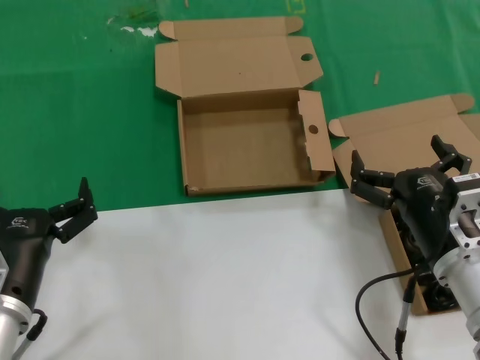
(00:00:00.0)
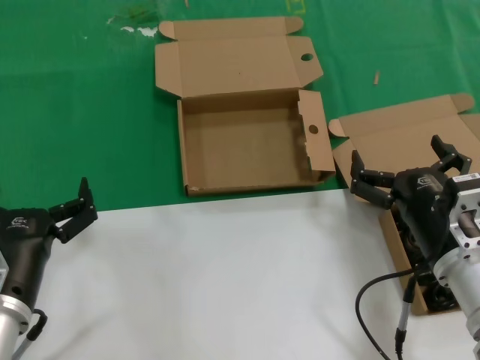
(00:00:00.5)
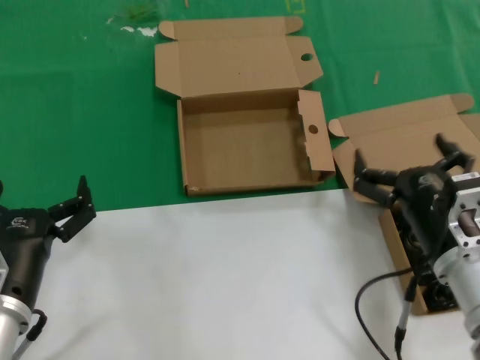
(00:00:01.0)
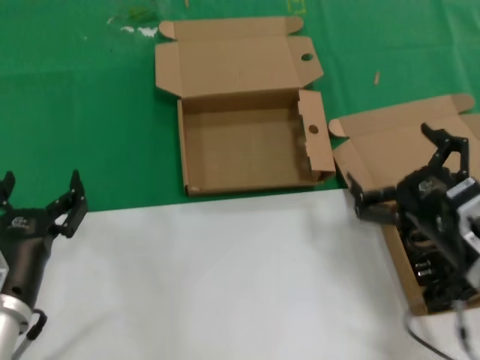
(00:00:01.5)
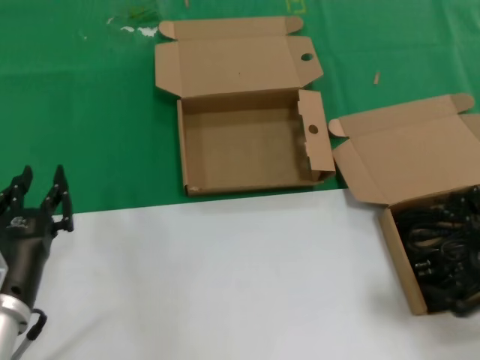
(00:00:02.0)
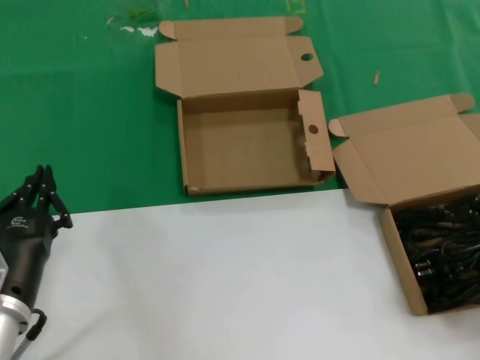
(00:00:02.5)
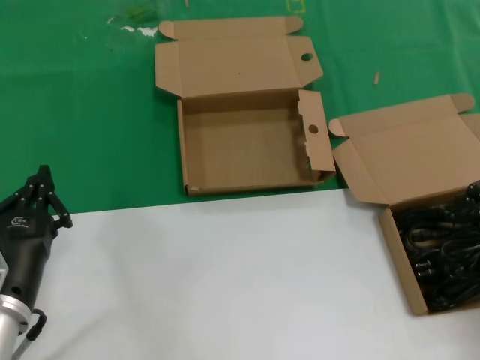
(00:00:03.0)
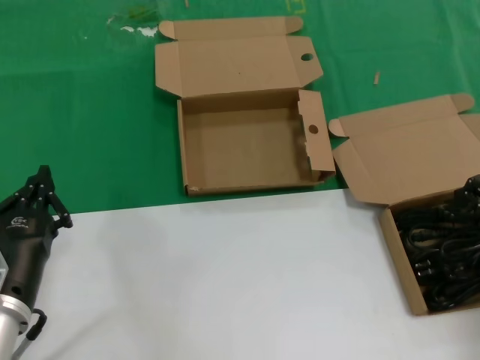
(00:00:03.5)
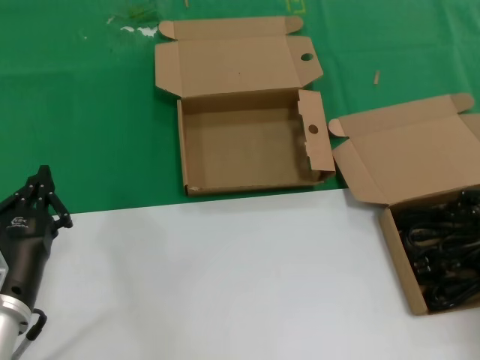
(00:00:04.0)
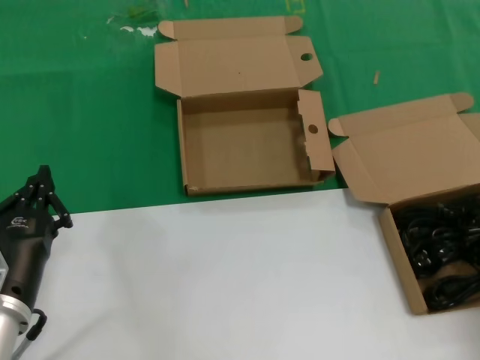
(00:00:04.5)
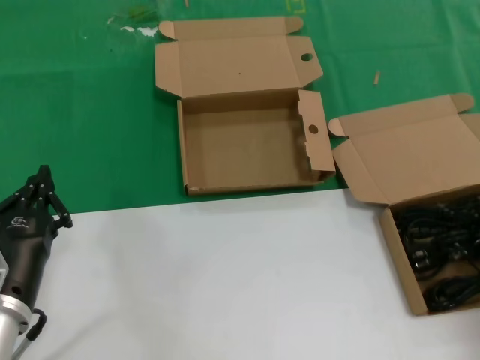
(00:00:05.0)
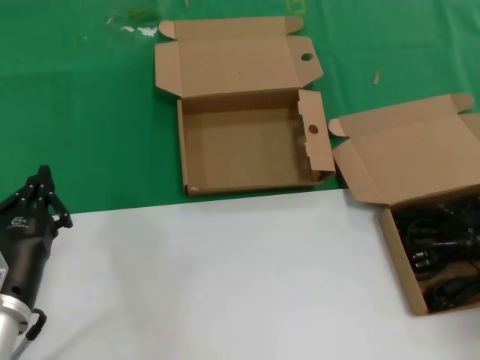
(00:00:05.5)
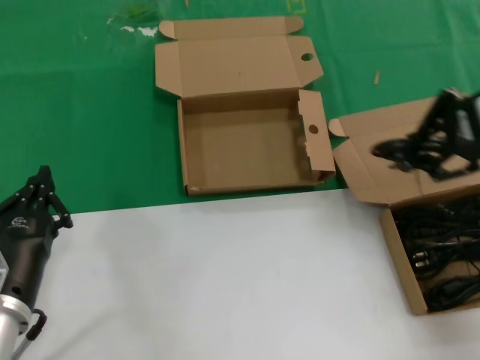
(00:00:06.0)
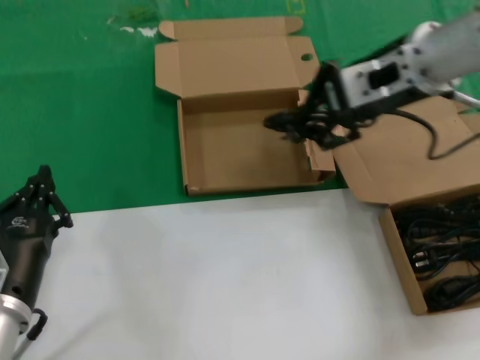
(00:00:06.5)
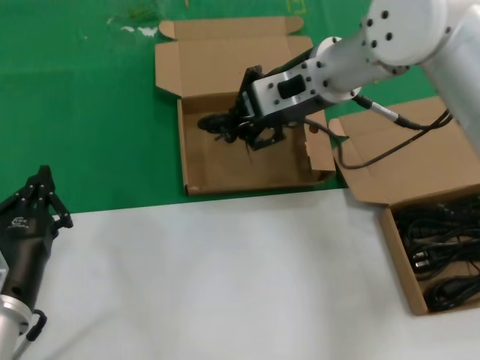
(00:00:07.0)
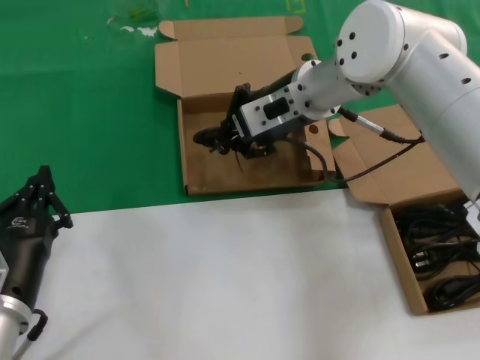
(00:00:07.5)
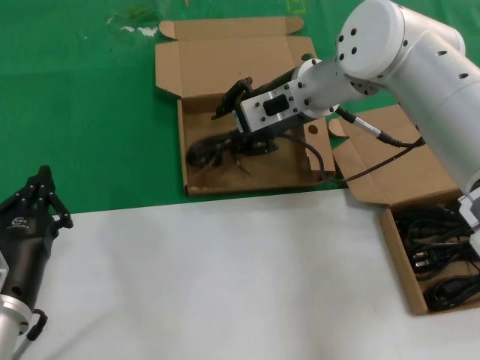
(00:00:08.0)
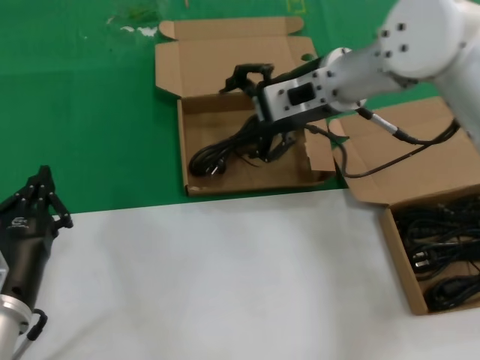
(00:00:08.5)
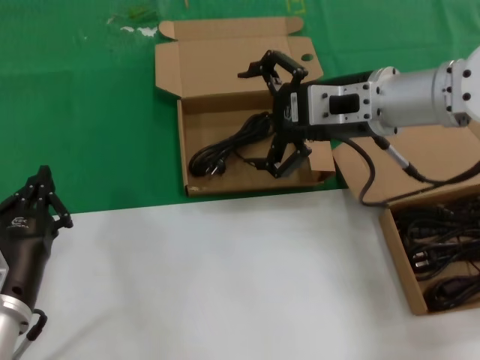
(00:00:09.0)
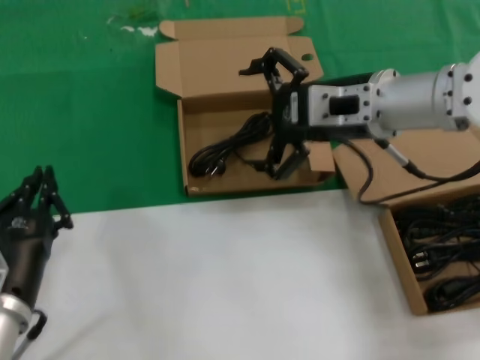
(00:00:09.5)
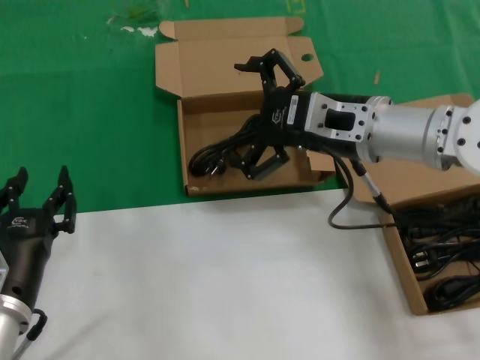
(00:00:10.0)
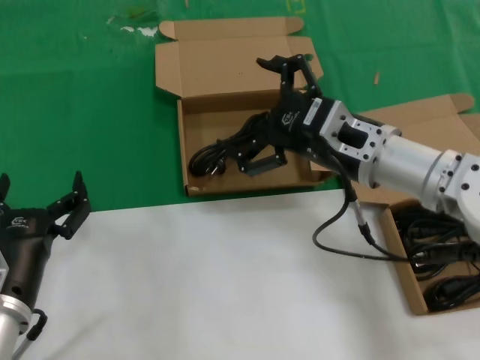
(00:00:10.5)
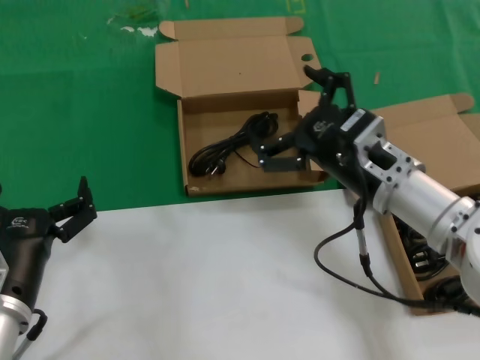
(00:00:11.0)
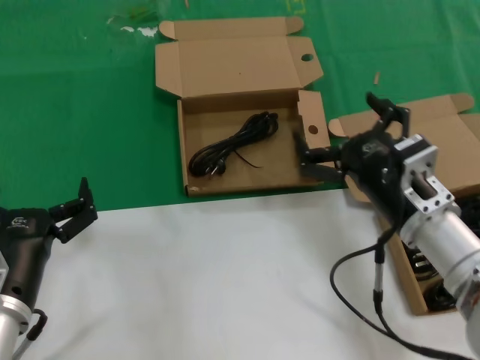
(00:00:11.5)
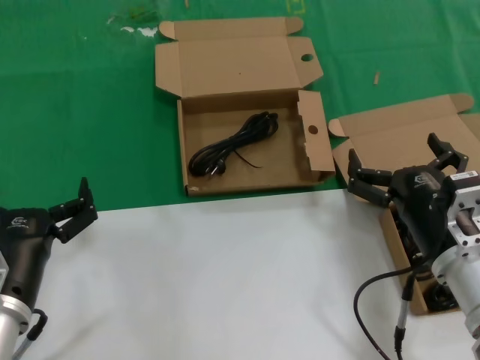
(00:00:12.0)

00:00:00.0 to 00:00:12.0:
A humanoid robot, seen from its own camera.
Task of the whole recording: take the parts from the box containing them and put them into an empty box.
Step, 00:00:00.0 to 00:00:04.5: Grasp the data cable.
Step, 00:00:05.0 to 00:00:08.0: Place the data cable in the another box.
00:00:00.0 to 00:00:02.0: The right hand travels to the right and upward by roughly 15 cm.
00:00:02.0 to 00:00:04.0: The right hand goes approximately 15 cm forward and to the right.
00:00:04.0 to 00:00:06.0: The right hand travels upward and to the left by about 20 cm.
00:00:06.0 to 00:00:08.0: The right hand goes about 25 cm to the left, forward and downward.
00:00:08.0 to 00:00:10.0: The right hand moves backward and to the right, approximately 10 cm.
00:00:10.0 to 00:00:12.0: The right hand heads downward and backward, covering some 20 cm.

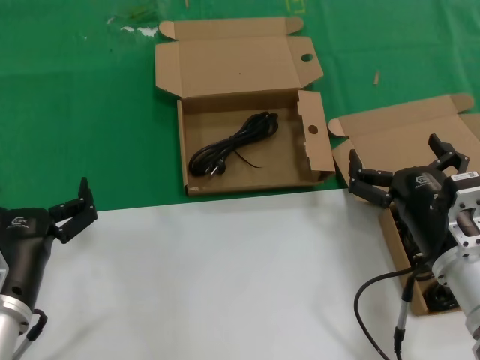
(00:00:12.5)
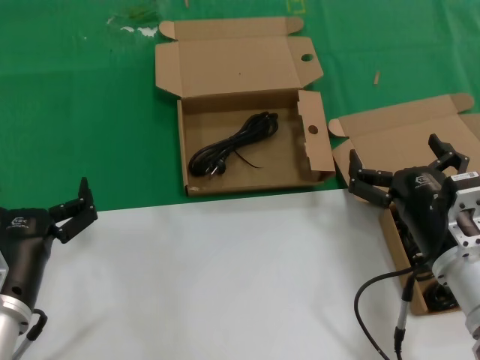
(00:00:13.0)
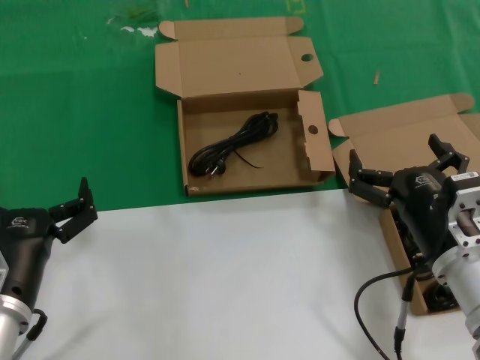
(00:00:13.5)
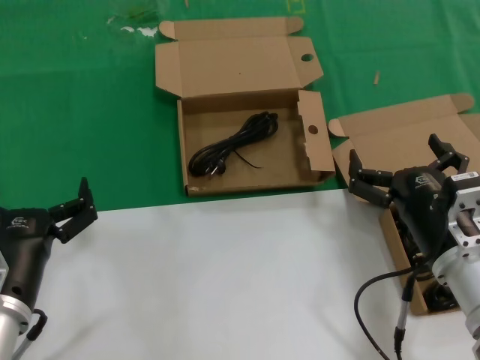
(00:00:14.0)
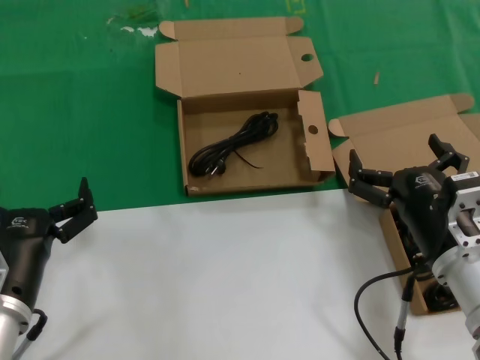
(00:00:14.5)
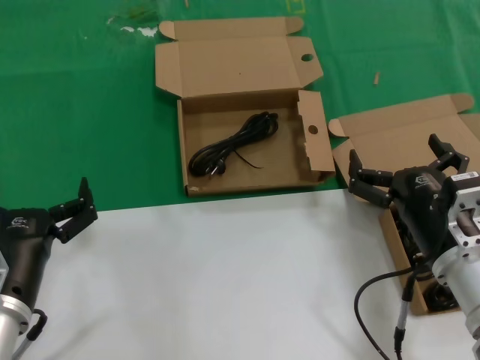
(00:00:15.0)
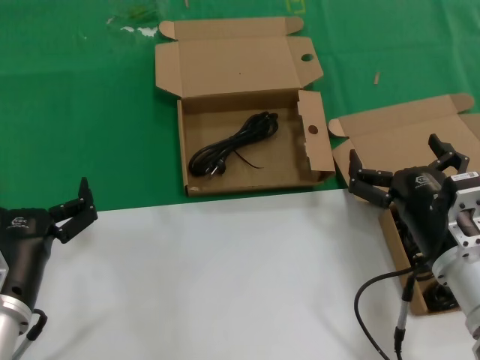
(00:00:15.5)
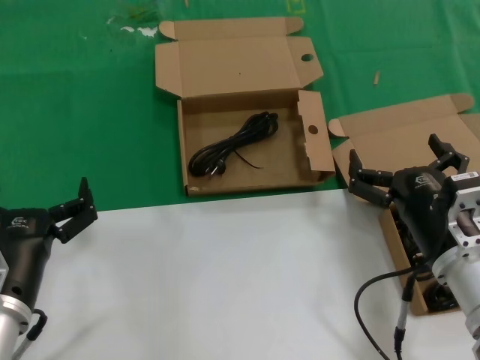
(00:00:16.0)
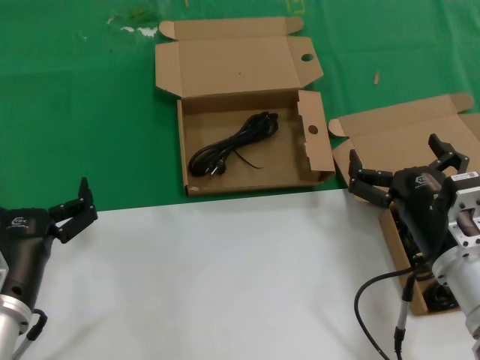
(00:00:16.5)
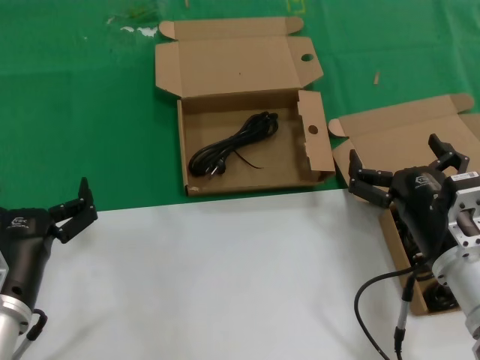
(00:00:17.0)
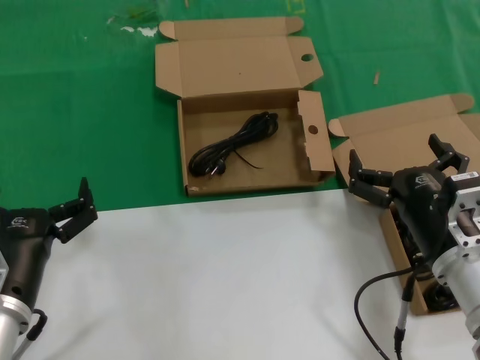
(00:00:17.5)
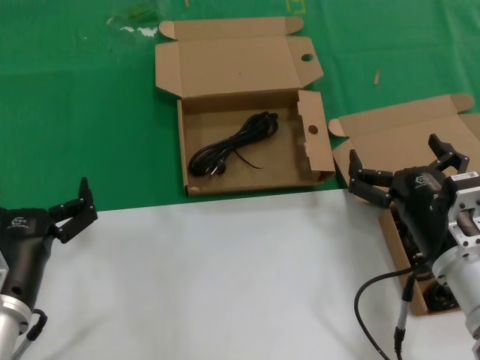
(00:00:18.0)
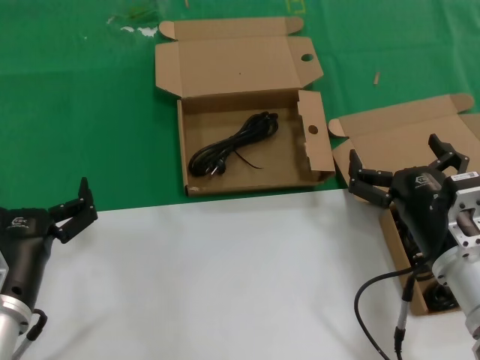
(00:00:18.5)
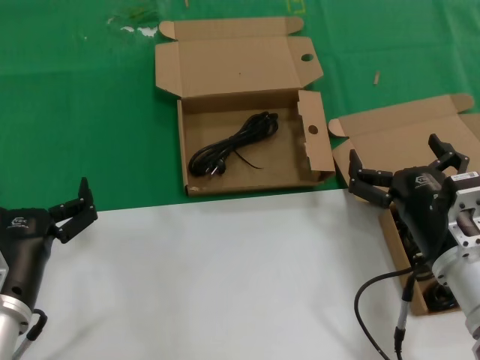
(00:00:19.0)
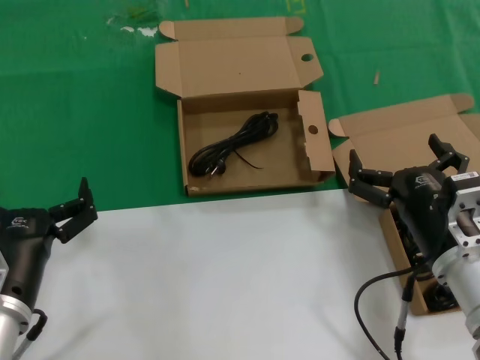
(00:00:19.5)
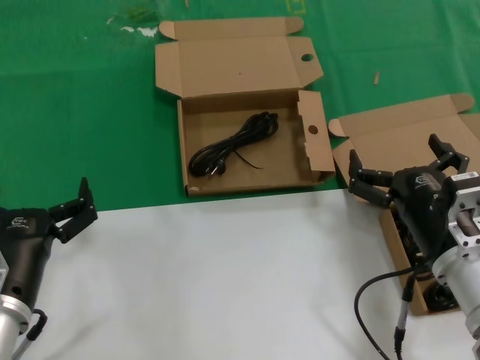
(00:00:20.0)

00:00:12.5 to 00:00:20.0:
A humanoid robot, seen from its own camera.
Task of the whole recording: take the parts from the box containing them and put them into an empty box.
00:00:12.5 to 00:00:20.0: Both hands stay put.
